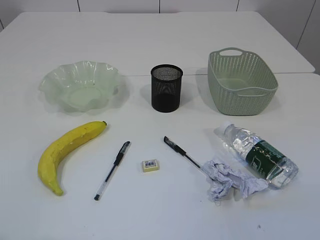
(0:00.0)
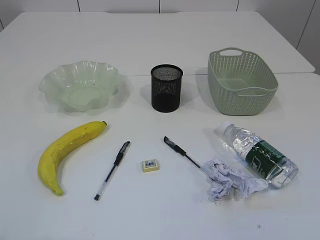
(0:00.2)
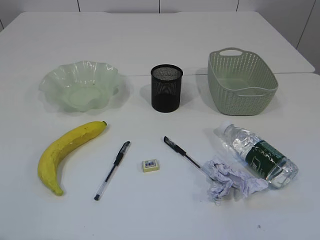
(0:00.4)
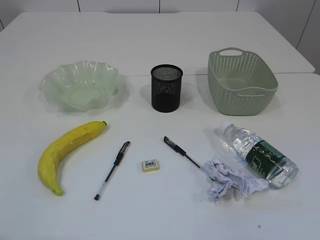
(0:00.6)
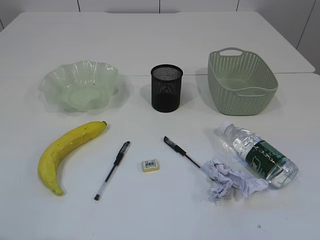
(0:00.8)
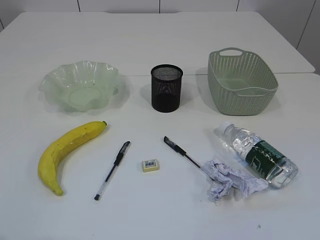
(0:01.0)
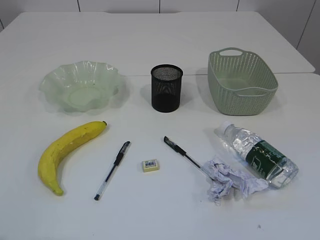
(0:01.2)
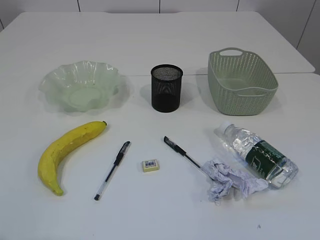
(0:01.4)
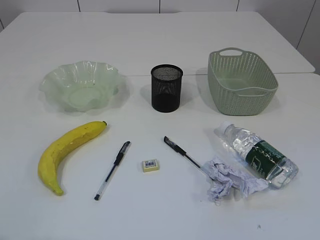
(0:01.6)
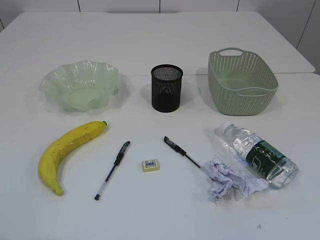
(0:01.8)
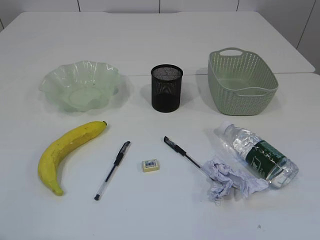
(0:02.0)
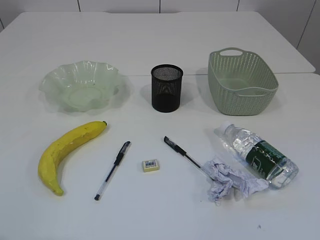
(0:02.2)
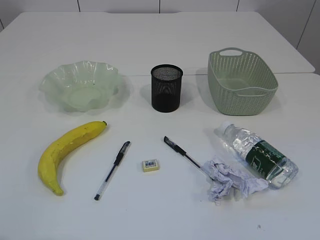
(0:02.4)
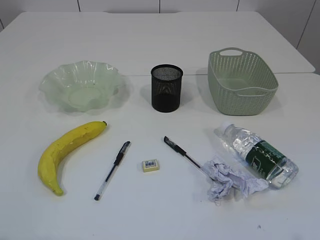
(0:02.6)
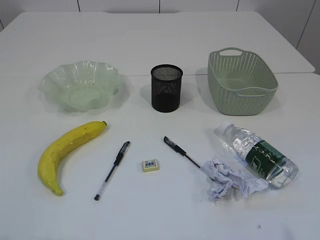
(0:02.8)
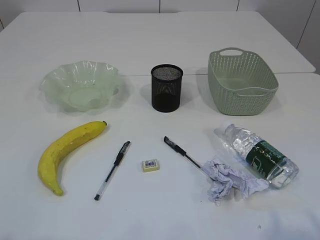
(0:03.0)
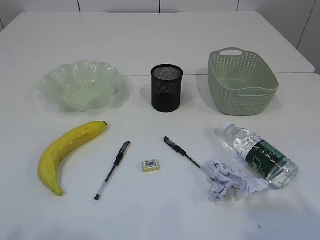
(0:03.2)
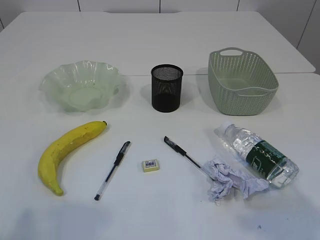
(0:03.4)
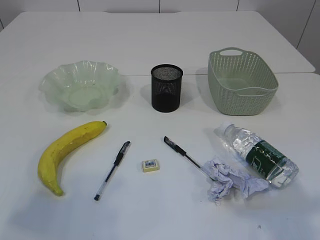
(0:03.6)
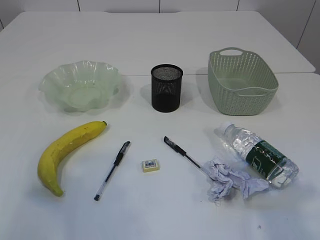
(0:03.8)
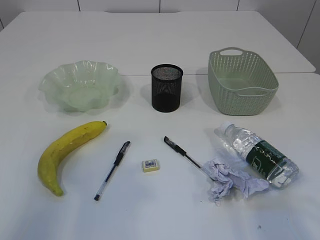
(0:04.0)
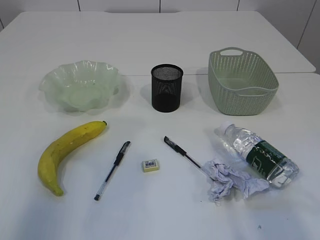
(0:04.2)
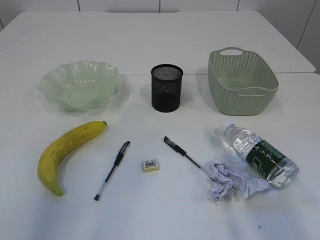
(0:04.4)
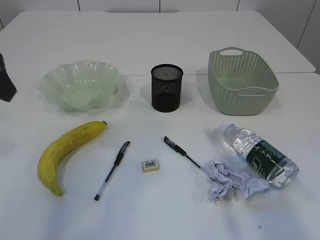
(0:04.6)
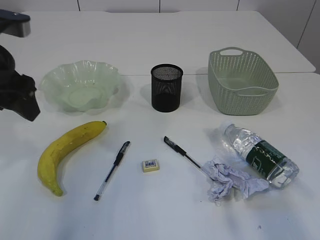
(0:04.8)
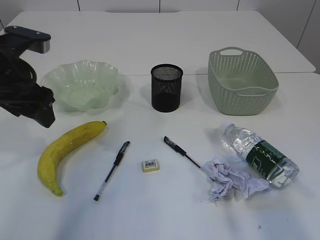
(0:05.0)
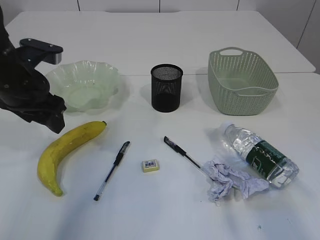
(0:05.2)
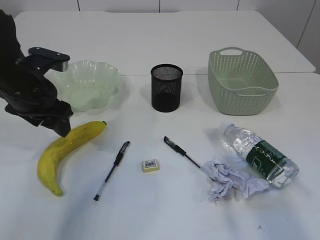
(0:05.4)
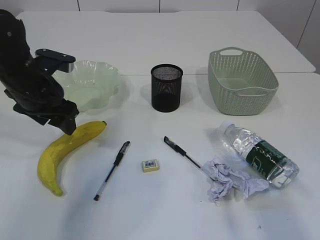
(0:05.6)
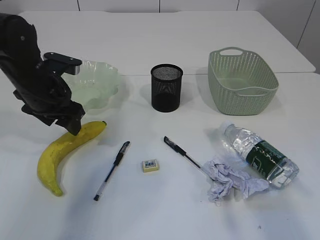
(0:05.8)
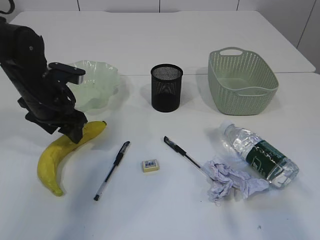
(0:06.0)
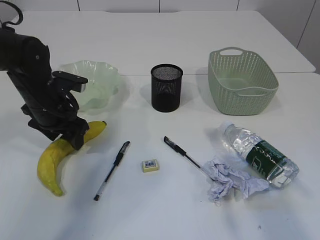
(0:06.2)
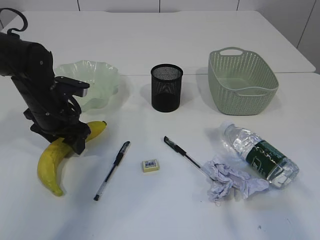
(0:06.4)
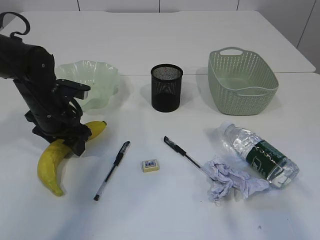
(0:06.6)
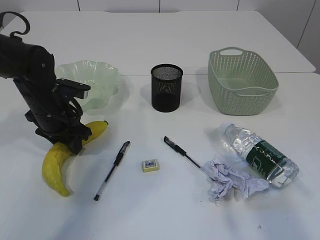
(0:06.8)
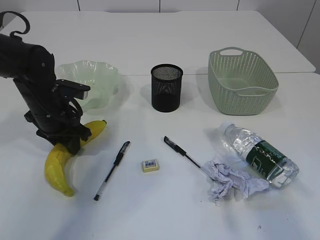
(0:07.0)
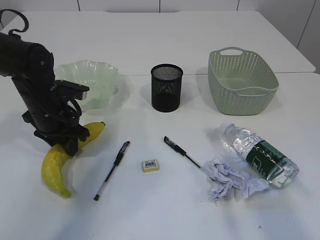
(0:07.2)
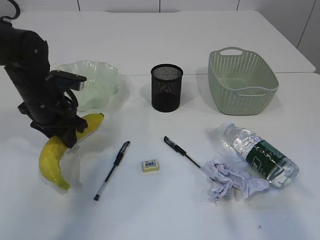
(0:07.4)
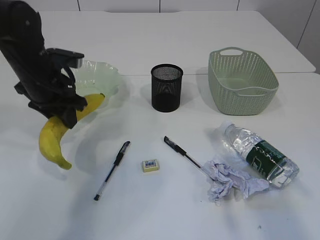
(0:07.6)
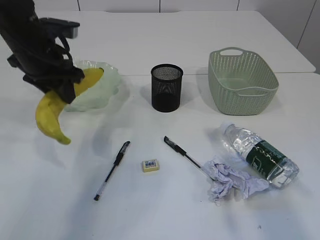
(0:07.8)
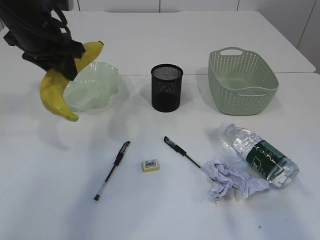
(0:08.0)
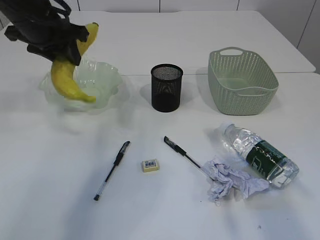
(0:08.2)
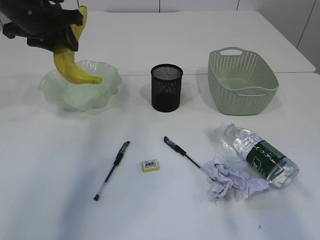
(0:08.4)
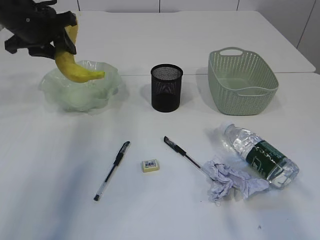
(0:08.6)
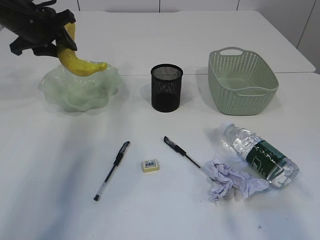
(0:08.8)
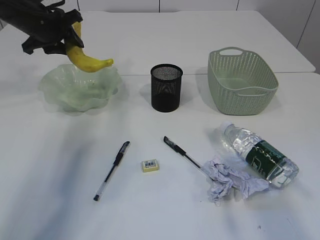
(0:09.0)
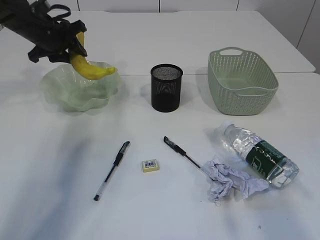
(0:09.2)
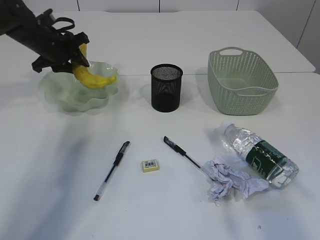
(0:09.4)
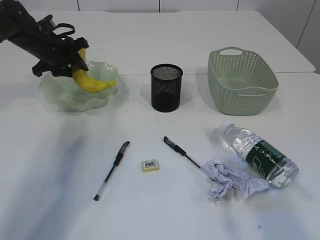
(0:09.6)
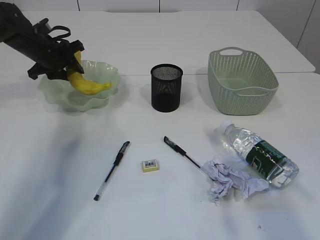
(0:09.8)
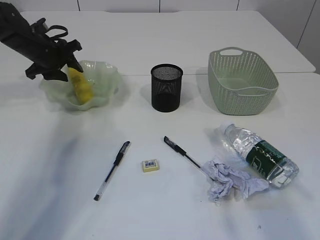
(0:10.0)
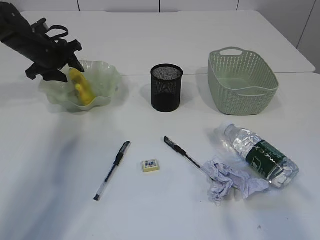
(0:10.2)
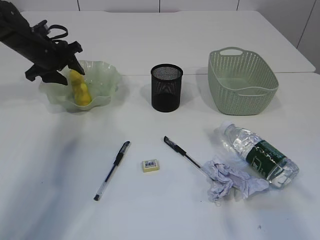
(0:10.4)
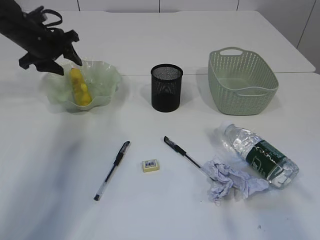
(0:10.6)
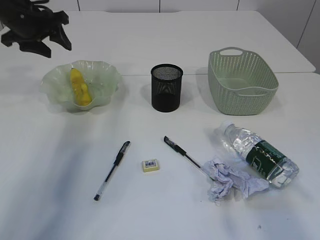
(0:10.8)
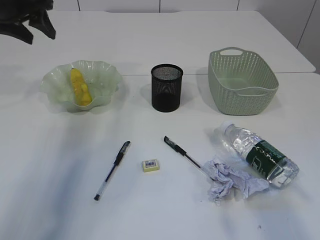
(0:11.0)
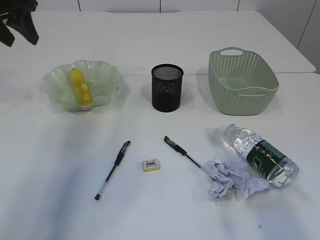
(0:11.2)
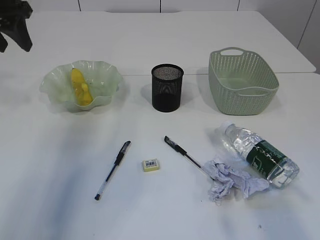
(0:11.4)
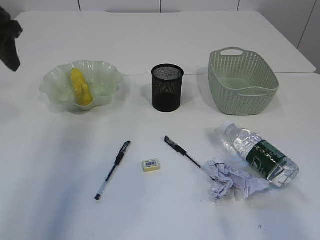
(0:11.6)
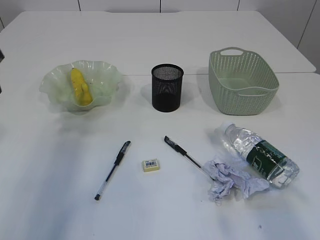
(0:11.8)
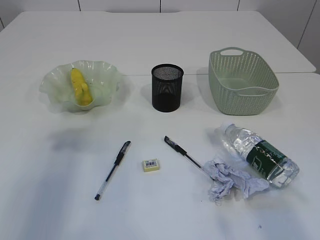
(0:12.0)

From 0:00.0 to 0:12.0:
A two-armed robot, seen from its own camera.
Step, from 0:07.8 to 0:10.6: Place the banana in the plate.
From 0:03.0 to 0:04.4: The right gripper is displaced forward and upward by roughly 15 cm, while the left gripper travels forward by about 25 cm.
From 0:04.4 to 0:06.0: The left gripper moves downward and forward, roughly 25 cm.
From 0:06.0 to 0:07.6: The left gripper closes up.
From 0:07.6 to 0:09.0: The left gripper shifts approximately 15 cm forward and upward.
From 0:09.0 to 0:10.4: The left gripper shifts some 5 cm downward.
From 0:10.4 to 0:12.0: The left gripper is displaced backward and upward by about 25 cm.

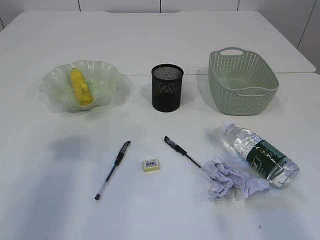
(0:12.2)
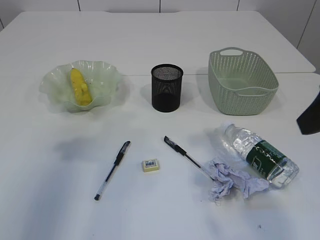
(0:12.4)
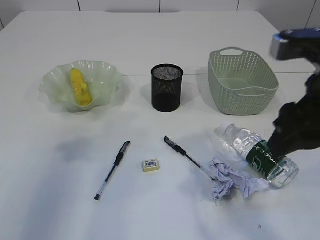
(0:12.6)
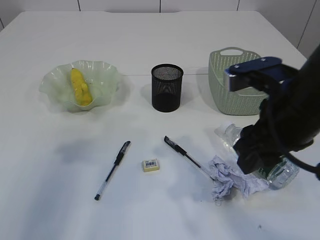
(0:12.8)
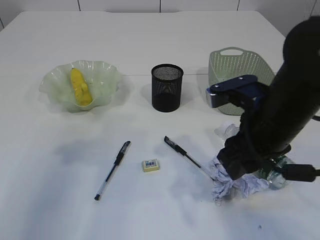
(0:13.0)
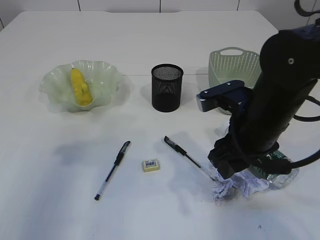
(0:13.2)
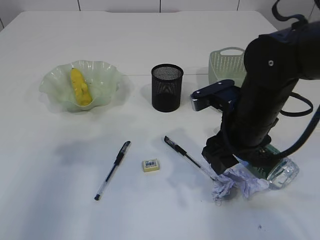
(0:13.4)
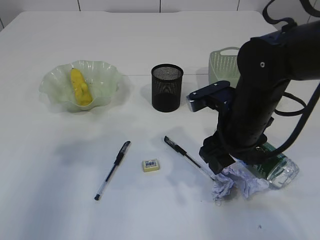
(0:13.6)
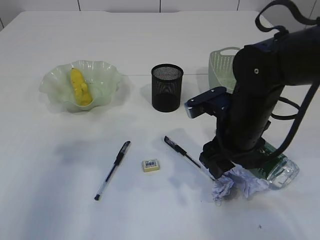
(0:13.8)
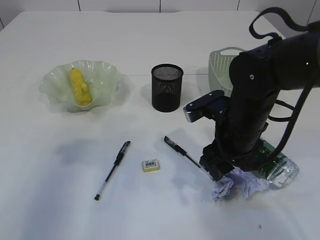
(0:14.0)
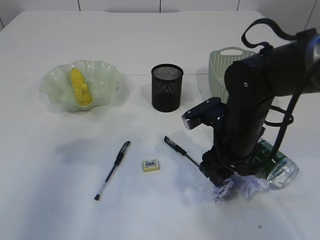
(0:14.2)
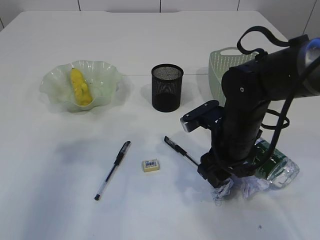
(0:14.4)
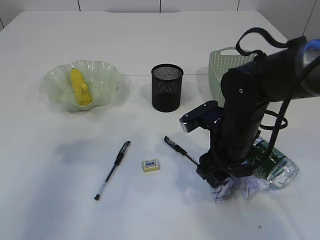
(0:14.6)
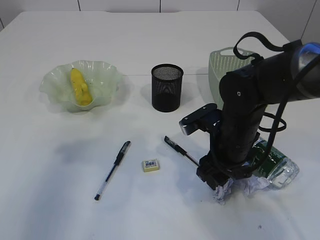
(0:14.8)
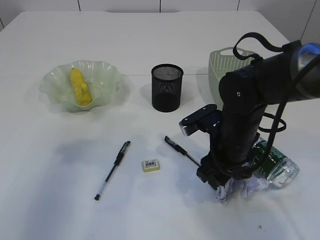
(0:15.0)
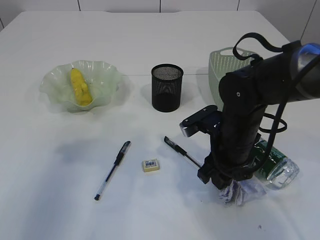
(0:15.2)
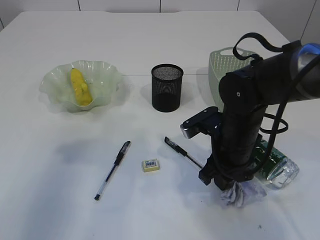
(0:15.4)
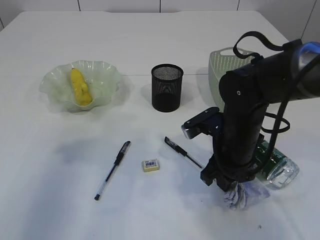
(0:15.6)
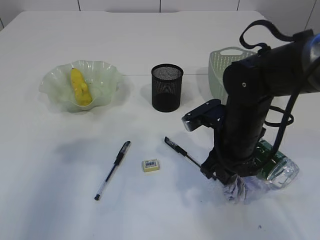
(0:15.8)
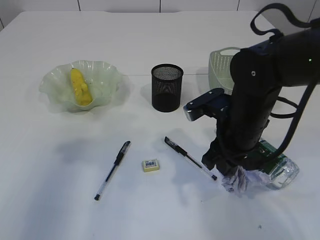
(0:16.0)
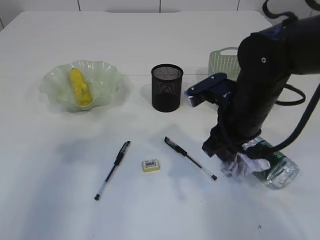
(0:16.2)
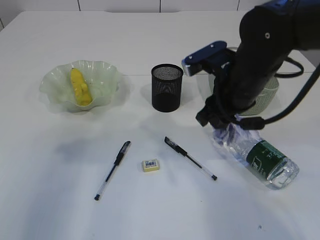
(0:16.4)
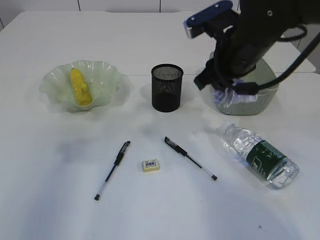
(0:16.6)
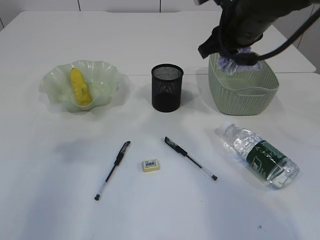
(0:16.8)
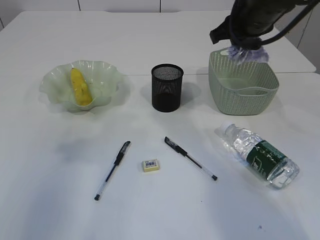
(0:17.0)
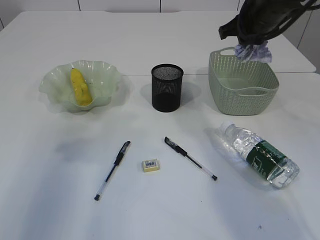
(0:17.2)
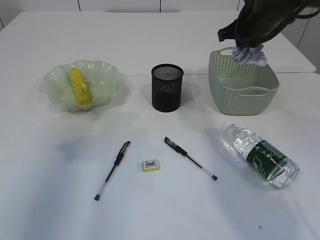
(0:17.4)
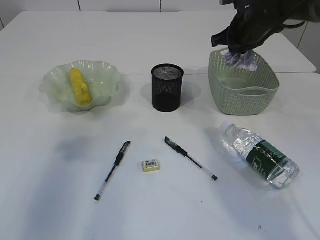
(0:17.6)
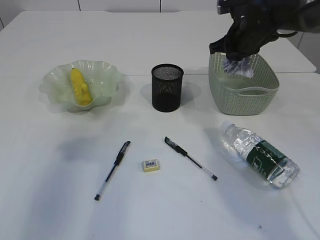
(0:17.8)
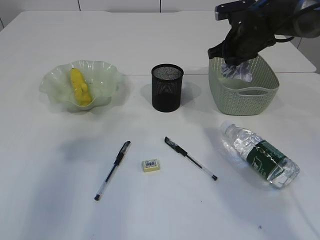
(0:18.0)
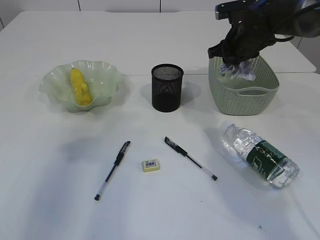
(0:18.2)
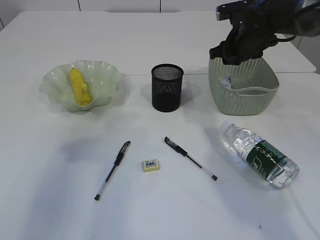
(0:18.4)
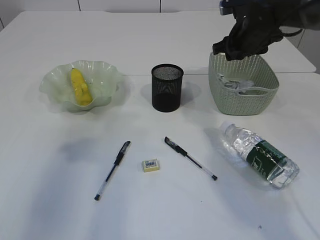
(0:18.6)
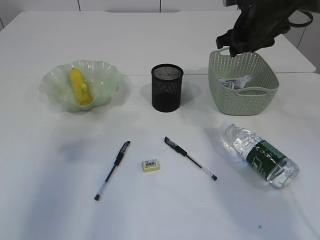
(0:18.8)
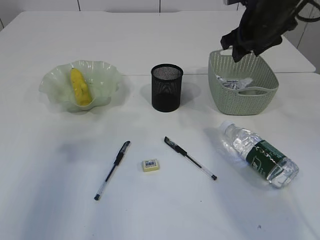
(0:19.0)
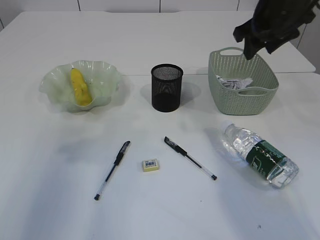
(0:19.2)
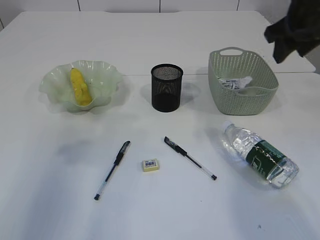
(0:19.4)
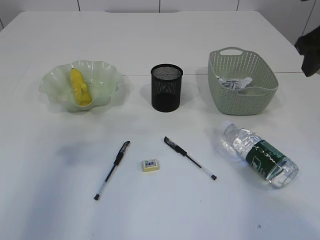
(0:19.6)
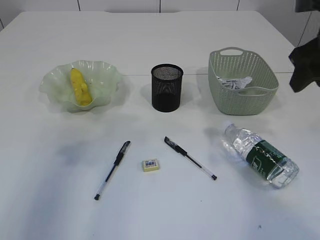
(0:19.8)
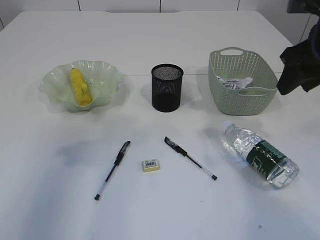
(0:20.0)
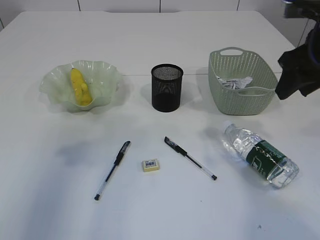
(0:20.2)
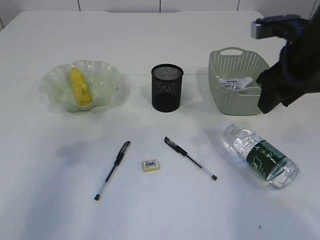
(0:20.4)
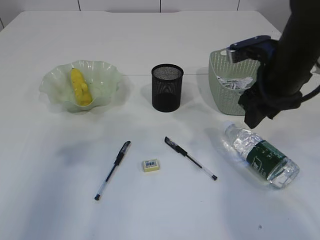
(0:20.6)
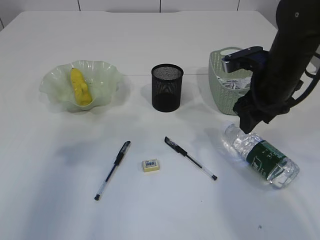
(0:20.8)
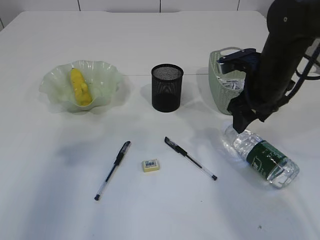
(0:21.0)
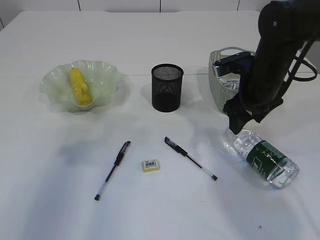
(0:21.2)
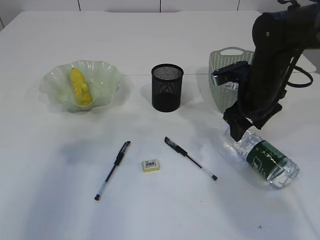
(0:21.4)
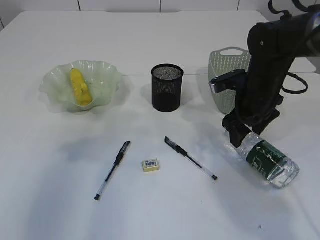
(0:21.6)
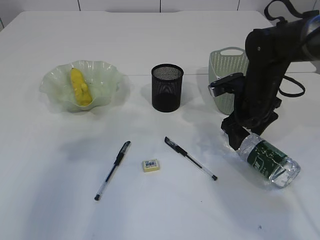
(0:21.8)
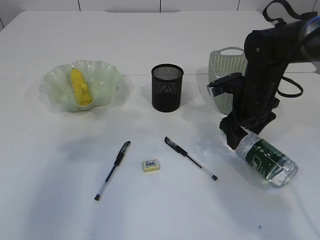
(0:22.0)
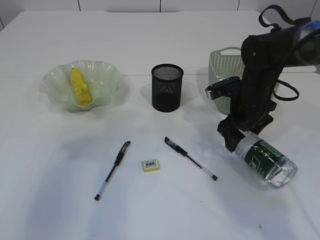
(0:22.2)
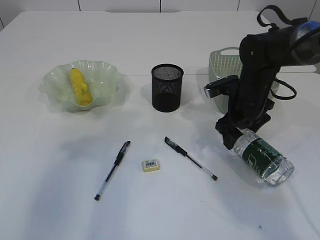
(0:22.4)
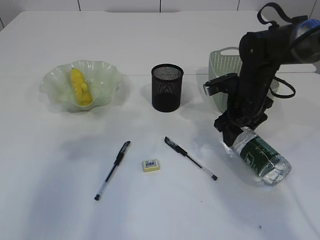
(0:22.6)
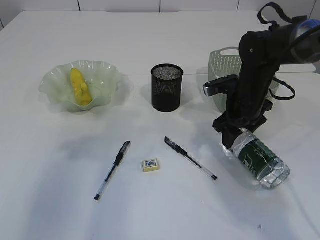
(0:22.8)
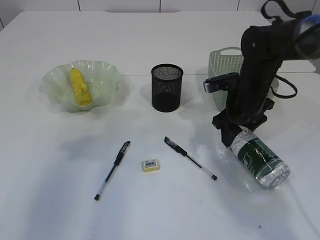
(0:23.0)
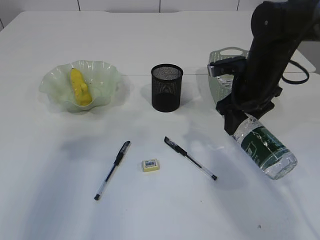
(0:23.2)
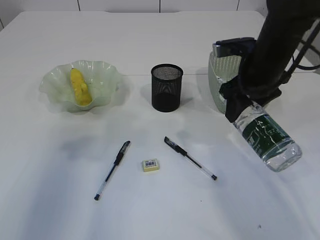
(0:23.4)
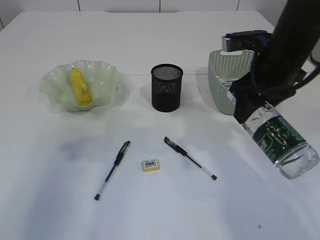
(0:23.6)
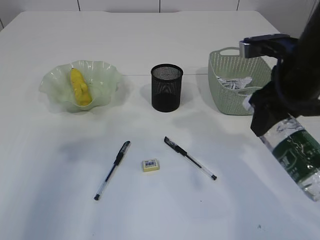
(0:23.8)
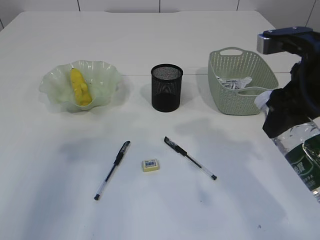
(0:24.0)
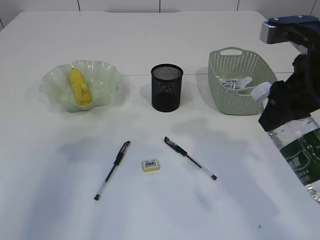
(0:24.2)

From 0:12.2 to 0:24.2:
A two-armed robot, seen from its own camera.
Step, from 0:12.2 to 0:16.2: Pick up the waste paper.
Step, from 0:16.4 to 0:19.2: Place the waste paper in the basket.
Step, from 0:19.4 to 0:23.4: Pick up the bottle with the right arm.
From 0:12.2 to 0:13.8: The right gripper goes roughly 25 cm downward, to the left and forward.
From 0:13.8 to 0:15.2: The grippers stay close to where they were, moving slightly.
From 0:15.2 to 0:16.6: The right gripper moves upward, about 15 cm.
From 0:16.6 to 0:18.2: The right gripper shifts roughly 15 cm forward and to the right.
From 0:18.2 to 0:19.8: The right gripper shifts some 20 cm backward and upward.
From 0:19.8 to 0:21.2: The right gripper goes about 15 cm downward, to the left and forward.
From 0:21.2 to 0:22.6: The right gripper is displaced downward by roughly 5 cm.
From 0:22.6 to 0:24.2: The right gripper travels upward and backward by about 20 cm.
